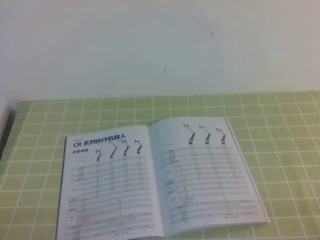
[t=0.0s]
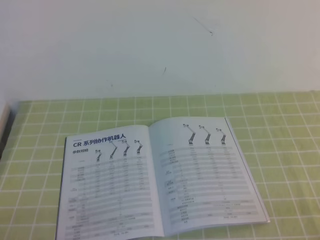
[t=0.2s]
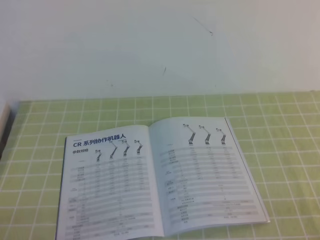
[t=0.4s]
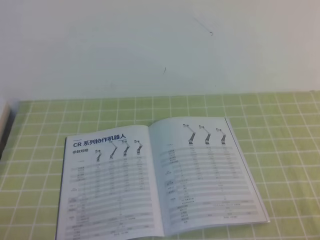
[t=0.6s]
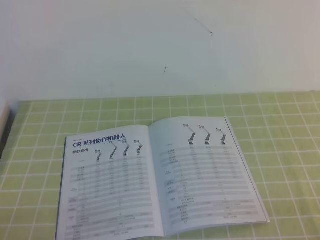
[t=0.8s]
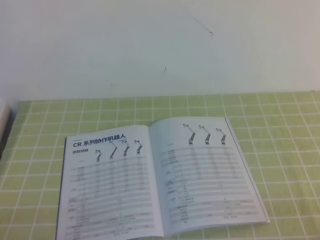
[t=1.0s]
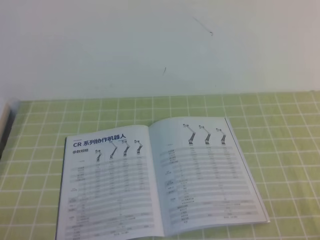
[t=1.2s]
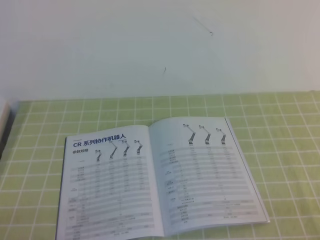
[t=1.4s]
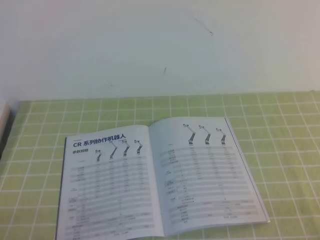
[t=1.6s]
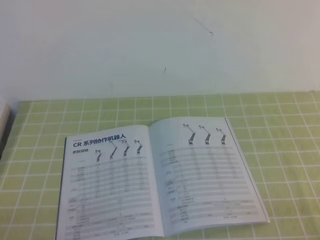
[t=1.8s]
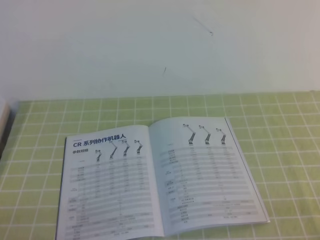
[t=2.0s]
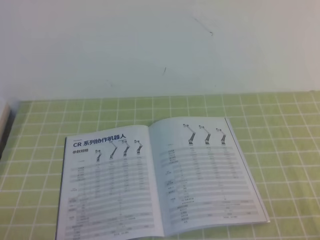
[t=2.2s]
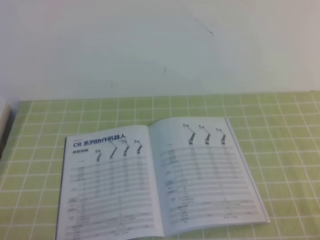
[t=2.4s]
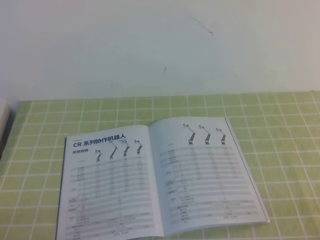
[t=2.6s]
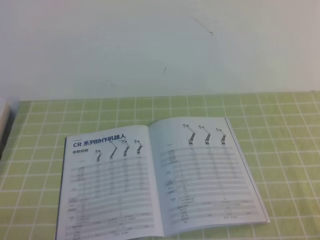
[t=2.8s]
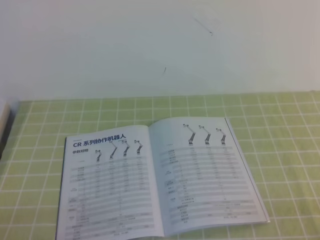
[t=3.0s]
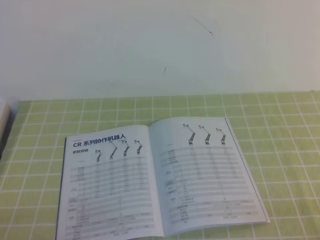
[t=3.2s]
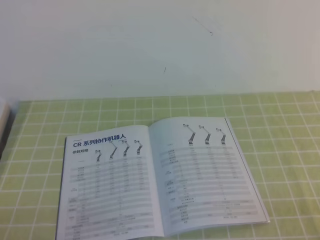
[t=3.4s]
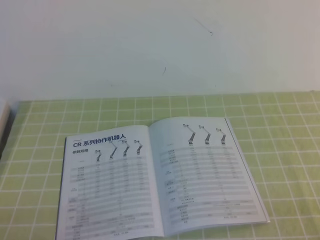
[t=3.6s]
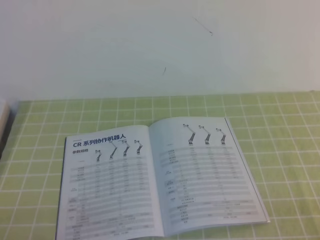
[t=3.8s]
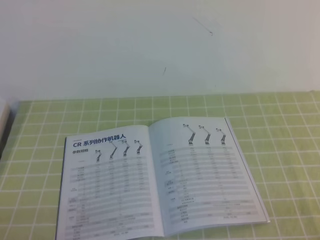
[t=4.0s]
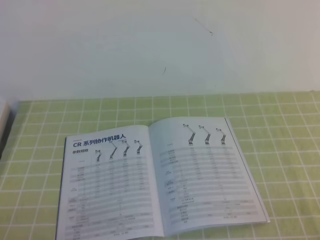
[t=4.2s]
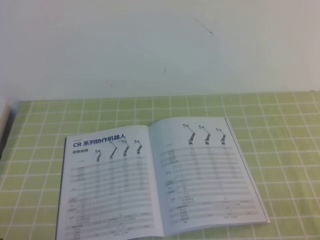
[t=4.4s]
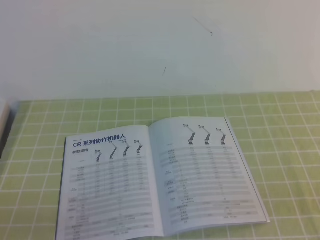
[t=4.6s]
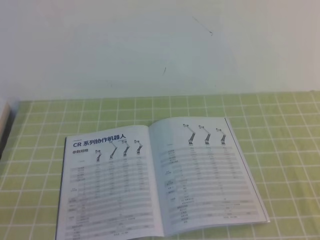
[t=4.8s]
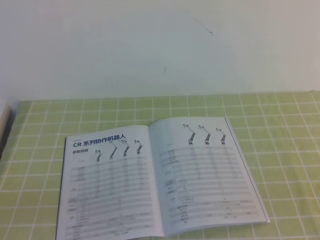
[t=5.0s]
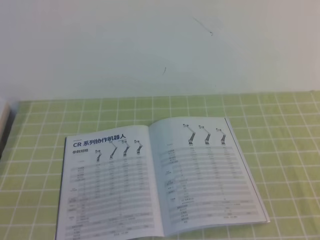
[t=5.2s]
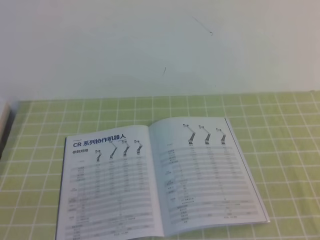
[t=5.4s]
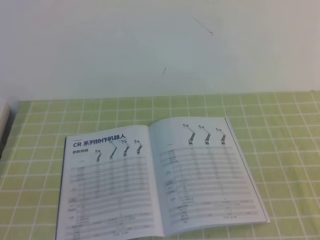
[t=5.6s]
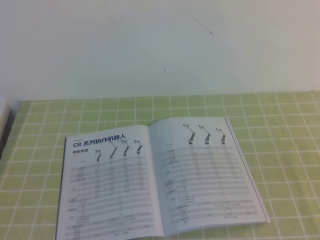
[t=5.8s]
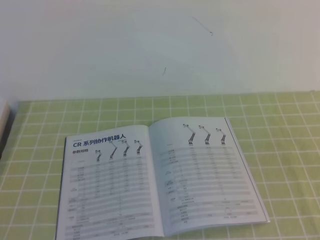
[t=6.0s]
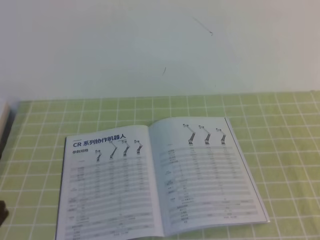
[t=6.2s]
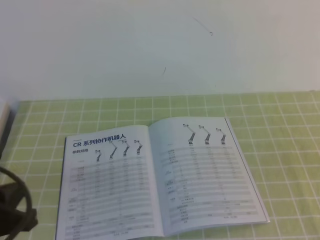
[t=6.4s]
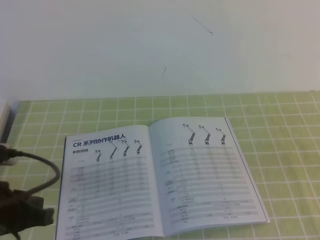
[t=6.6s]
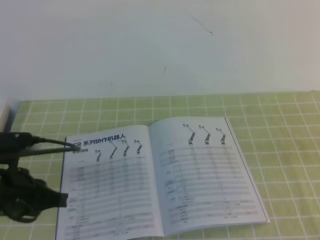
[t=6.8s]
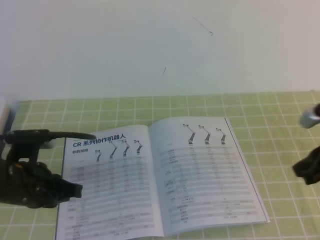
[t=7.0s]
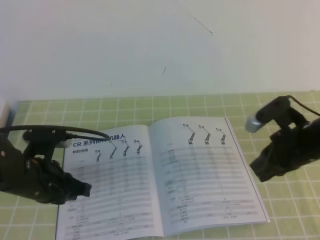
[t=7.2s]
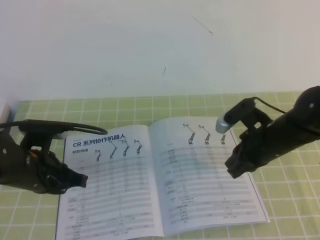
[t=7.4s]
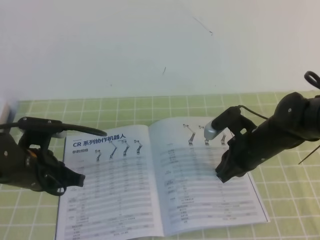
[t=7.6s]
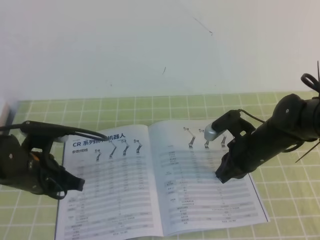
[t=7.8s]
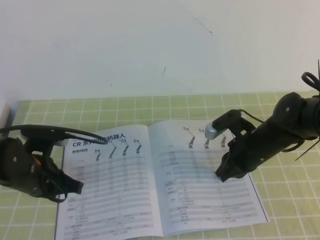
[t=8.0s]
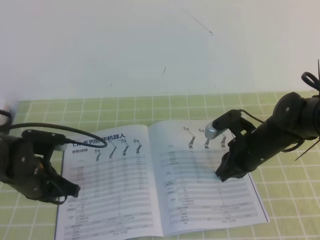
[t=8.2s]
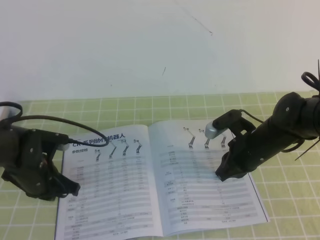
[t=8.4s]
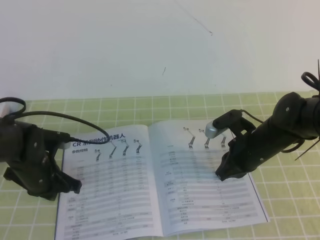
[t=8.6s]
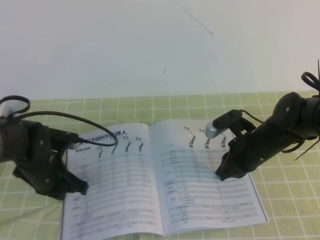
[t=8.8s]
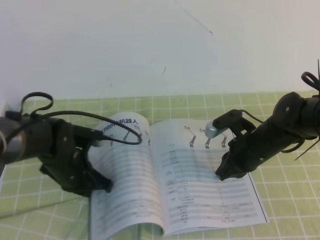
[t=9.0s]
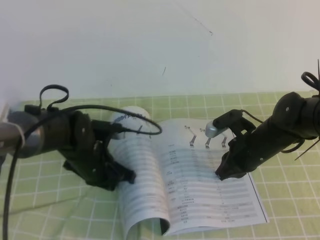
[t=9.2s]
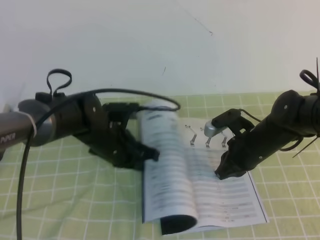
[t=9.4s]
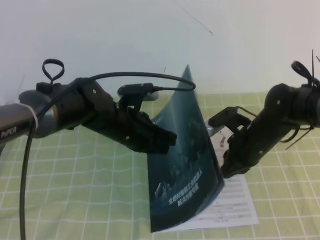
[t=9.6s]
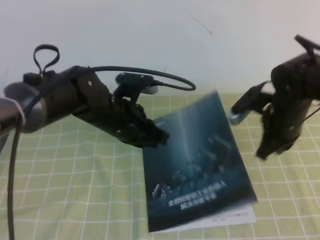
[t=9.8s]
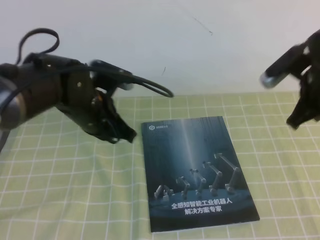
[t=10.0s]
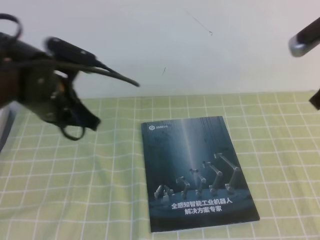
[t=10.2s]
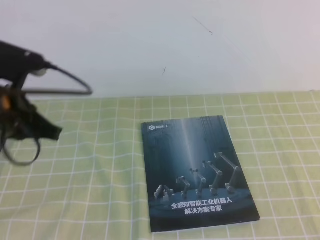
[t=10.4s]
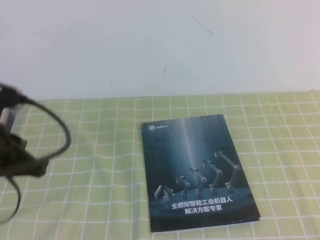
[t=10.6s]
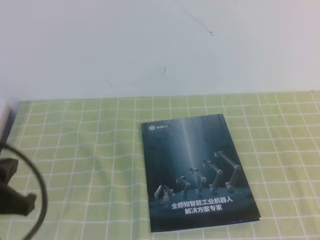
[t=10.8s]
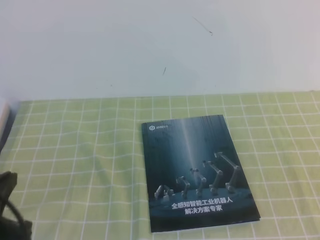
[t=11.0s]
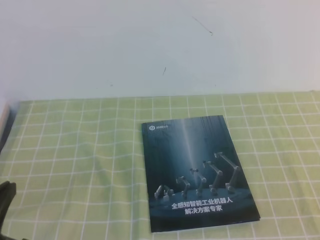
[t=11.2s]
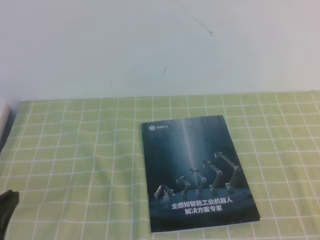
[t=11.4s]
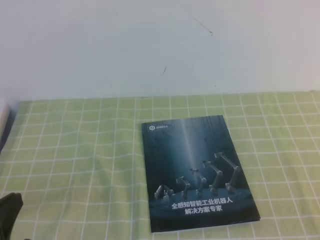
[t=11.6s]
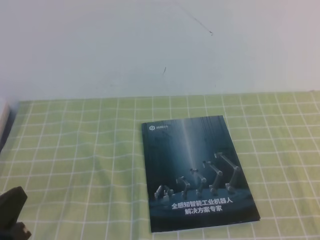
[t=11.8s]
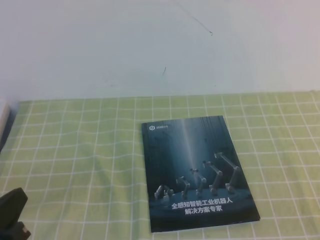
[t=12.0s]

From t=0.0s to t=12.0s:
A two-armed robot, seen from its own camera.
Task of the whole recording: on the green tablecloth, hold the book with one hand and close it with the other.
From t=0.0s to t=3.0s: Neither gripper changes place.
From t=6.0s to t=7.6s: The right gripper shifts roughly 35 cm forward, to the left and downward. The left gripper is displaced forward and downward by approximately 25 cm.
From t=7.6s to t=9.0s: The left gripper ends up roughly 10 cm from where it was.
From t=9.0s to t=10.4s: The right gripper goes some 25 cm upward and to the right. The left gripper travels upward by about 20 cm.
From t=10.4s to t=12.0s: The grippers both shift backward and downward by about 20 cm.
